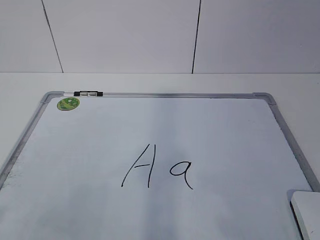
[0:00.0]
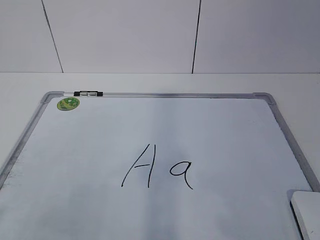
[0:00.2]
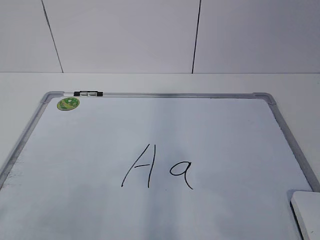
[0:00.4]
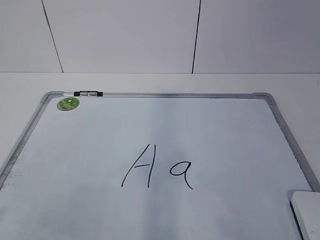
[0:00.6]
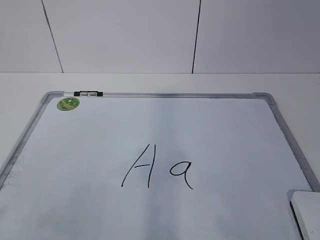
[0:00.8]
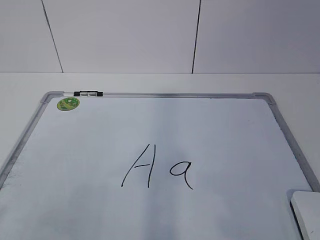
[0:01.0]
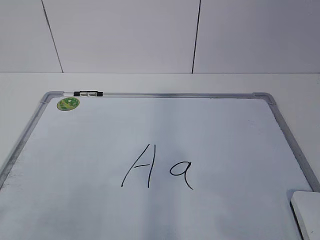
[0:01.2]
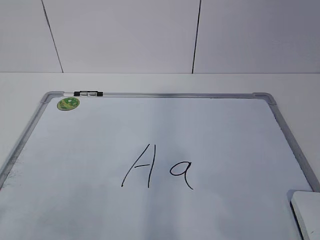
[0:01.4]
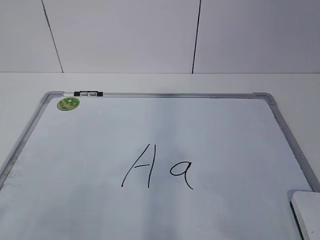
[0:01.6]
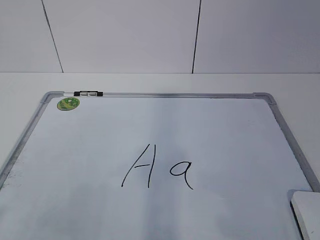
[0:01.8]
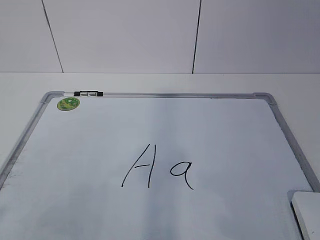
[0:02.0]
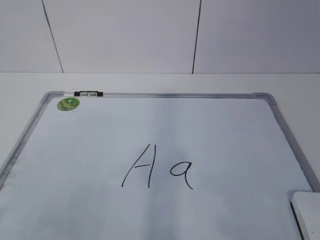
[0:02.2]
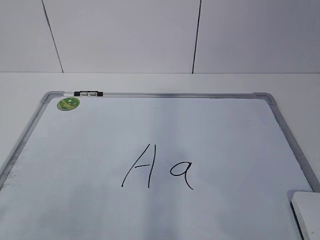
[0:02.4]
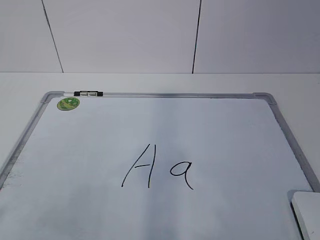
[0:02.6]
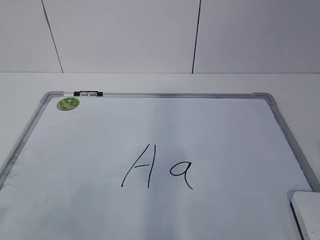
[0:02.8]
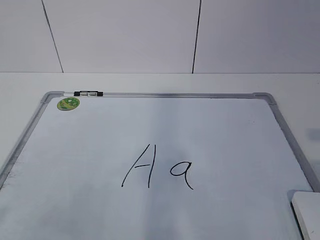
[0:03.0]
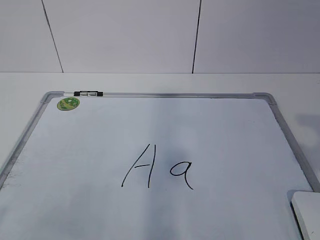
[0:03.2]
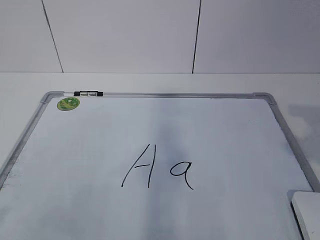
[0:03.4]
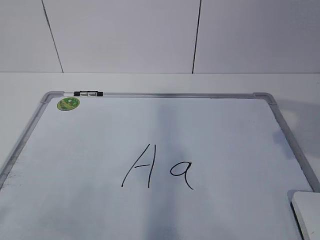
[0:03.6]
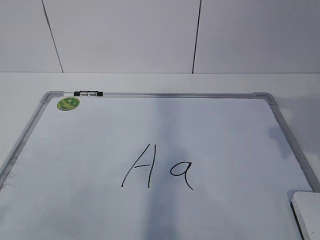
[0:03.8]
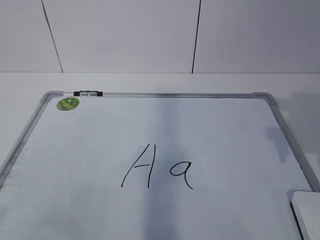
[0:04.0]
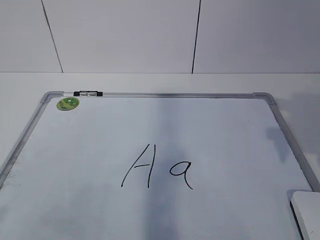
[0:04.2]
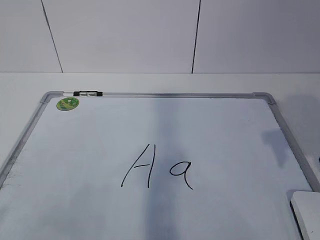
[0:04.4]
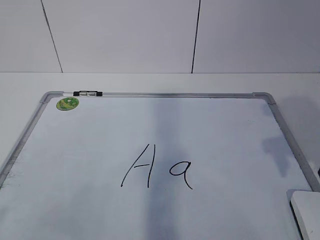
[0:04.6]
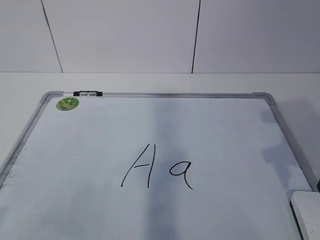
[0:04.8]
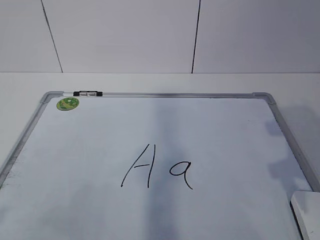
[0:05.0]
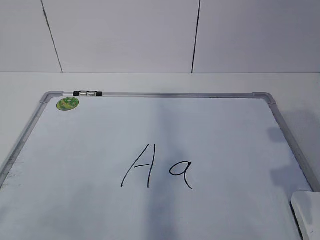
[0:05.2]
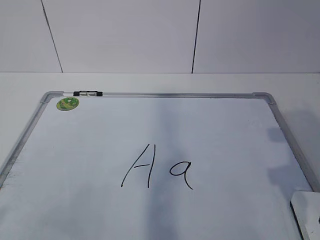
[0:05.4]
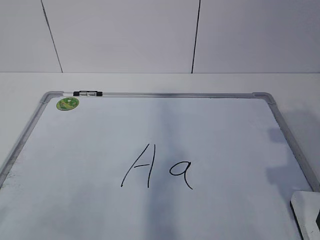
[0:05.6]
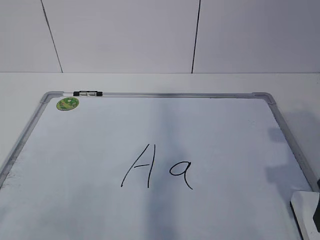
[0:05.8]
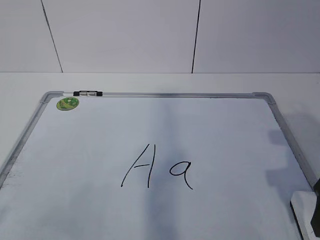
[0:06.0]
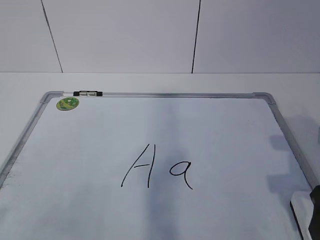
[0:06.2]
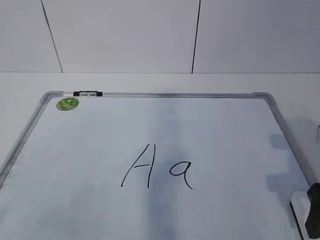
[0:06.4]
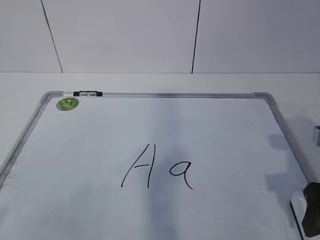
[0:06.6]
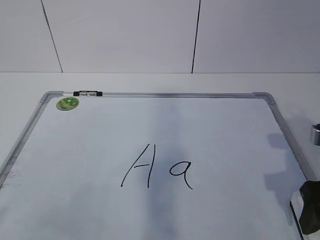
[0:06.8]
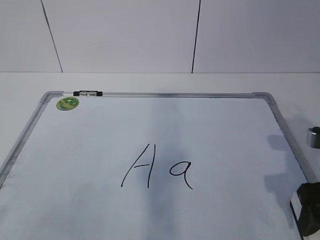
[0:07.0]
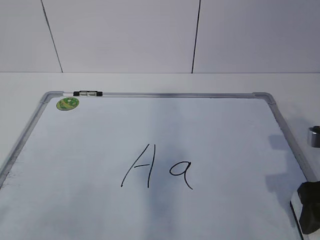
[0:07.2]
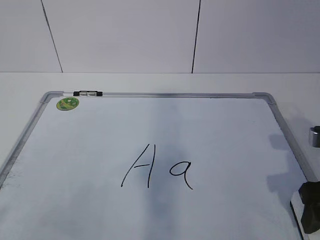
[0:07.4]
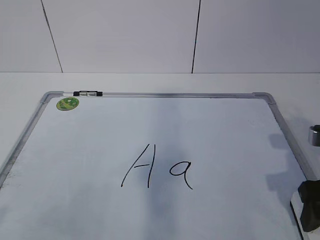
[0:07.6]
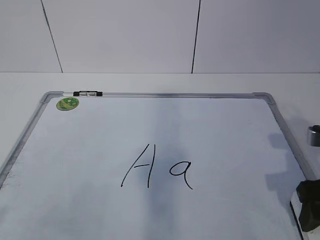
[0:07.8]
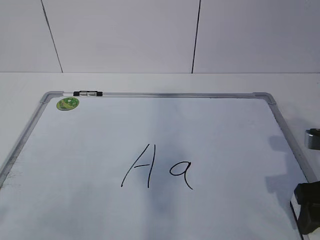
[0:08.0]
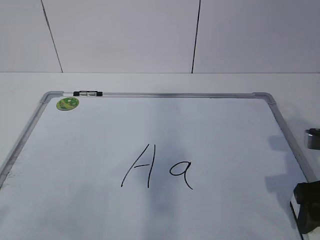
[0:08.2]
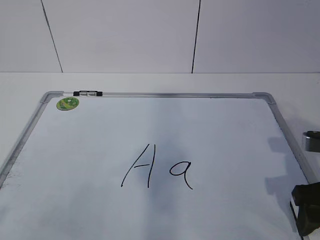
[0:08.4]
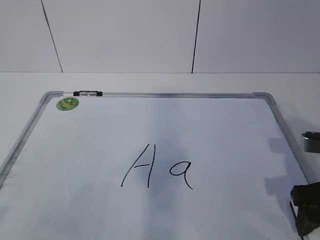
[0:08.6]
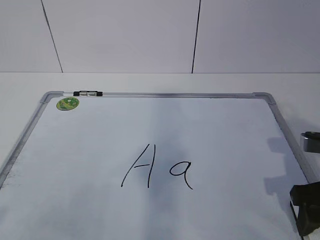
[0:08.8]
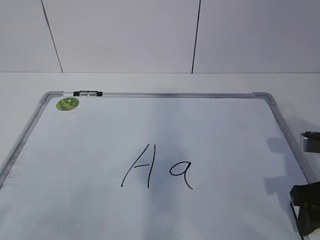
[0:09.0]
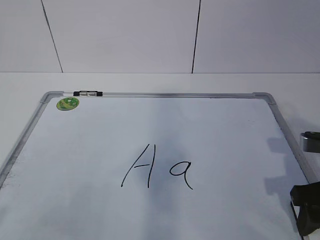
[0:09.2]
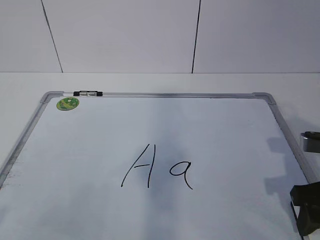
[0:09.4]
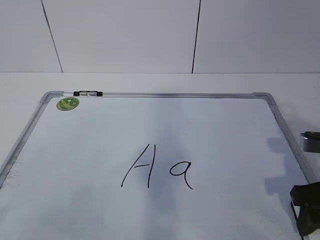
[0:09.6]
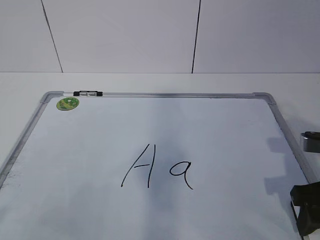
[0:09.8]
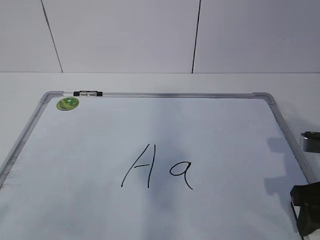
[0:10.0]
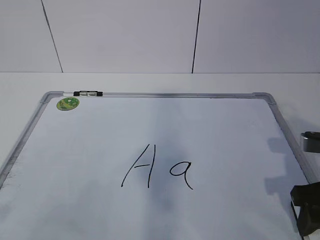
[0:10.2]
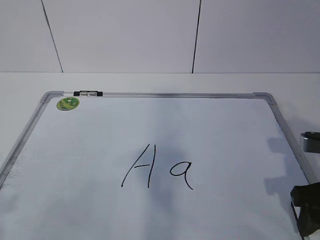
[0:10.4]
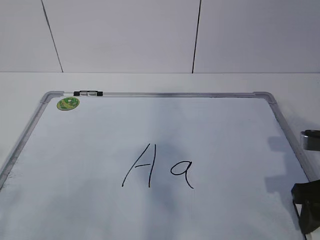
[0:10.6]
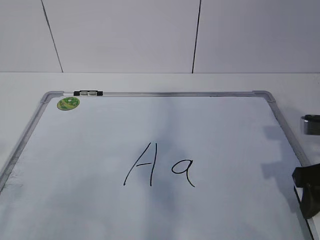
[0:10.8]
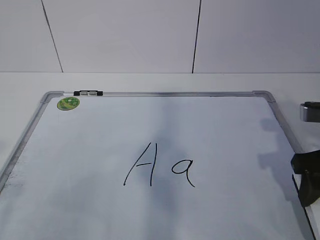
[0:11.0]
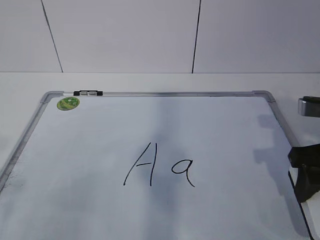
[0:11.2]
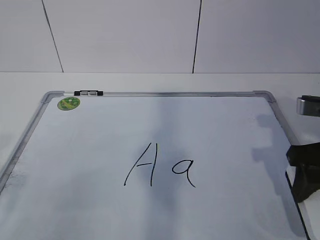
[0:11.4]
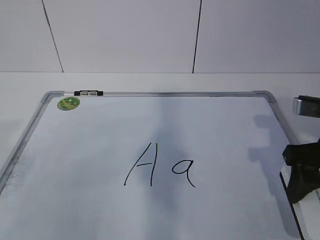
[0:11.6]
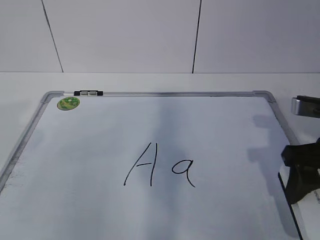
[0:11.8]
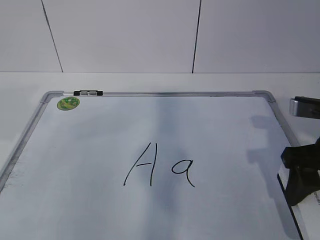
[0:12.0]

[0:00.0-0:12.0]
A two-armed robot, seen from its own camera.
Task of the whole recording: pick up the eraser on the blackboard and erase the letter "a".
0:03.0 to 0:04.4: The right gripper goes roughly 15 cm forward, and opens up.
0:04.4 to 0:06.0: The right gripper moves downward, some 5 cm.
0:06.0 to 0:07.6: The grippers move only a little.
0:07.6 to 0:09.0: The right gripper closes its fingers.
0:10.4 to 0:12.0: The left gripper travels forward by approximately 20 cm; the right gripper shifts by about 5 cm.

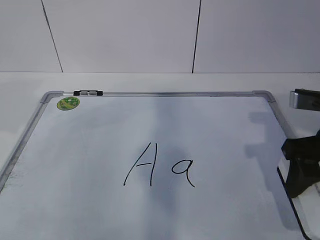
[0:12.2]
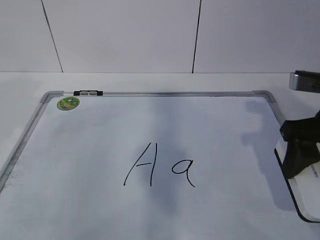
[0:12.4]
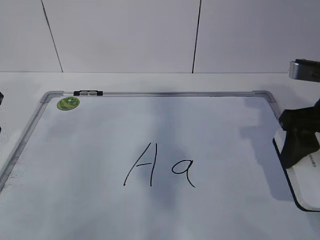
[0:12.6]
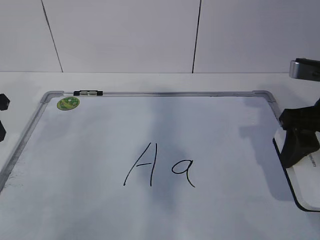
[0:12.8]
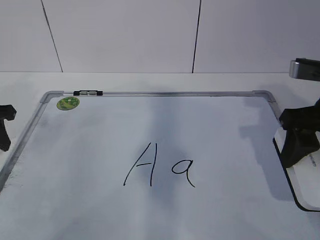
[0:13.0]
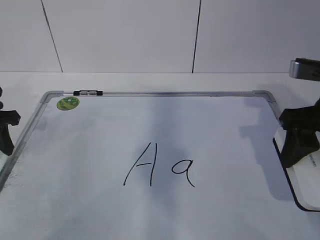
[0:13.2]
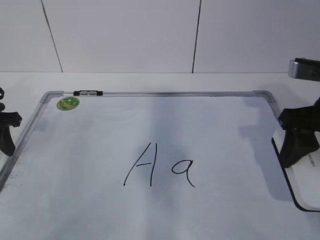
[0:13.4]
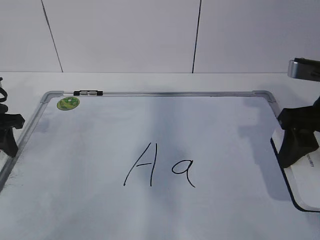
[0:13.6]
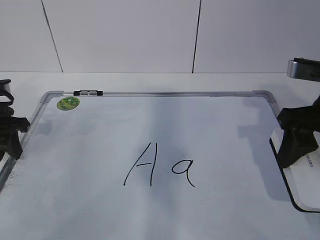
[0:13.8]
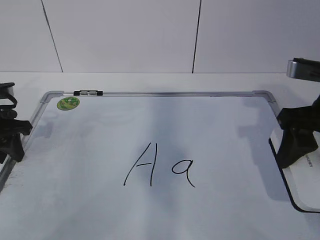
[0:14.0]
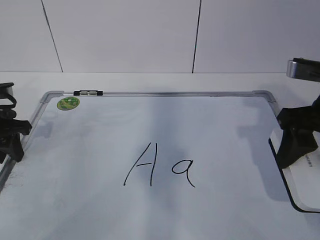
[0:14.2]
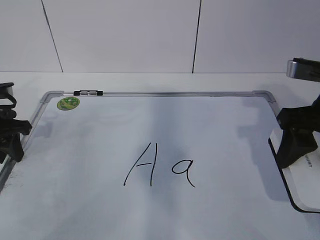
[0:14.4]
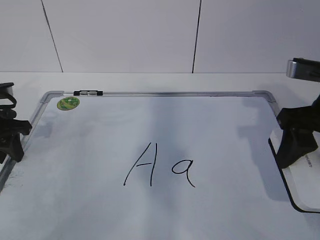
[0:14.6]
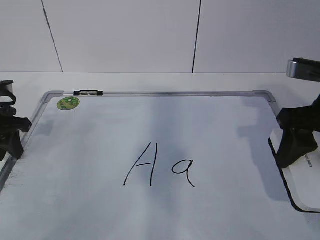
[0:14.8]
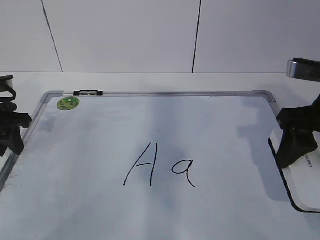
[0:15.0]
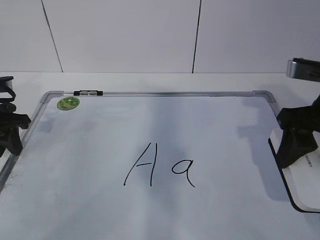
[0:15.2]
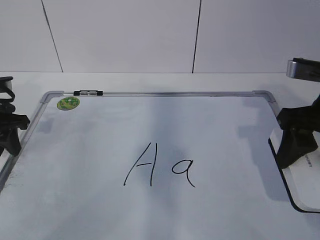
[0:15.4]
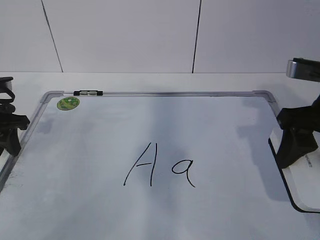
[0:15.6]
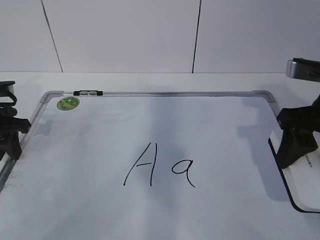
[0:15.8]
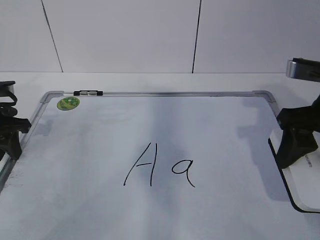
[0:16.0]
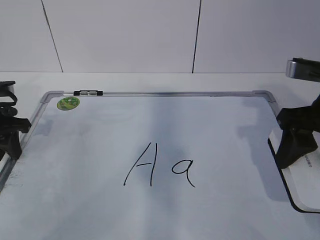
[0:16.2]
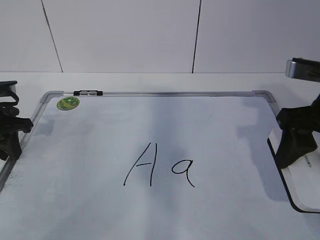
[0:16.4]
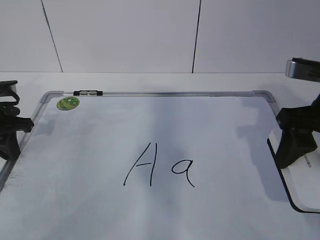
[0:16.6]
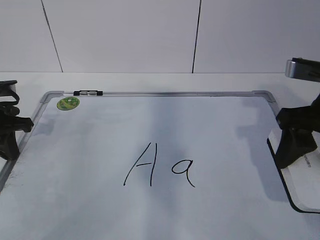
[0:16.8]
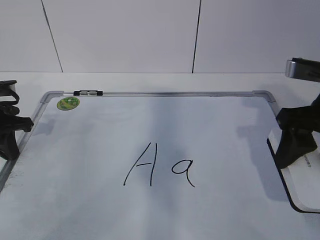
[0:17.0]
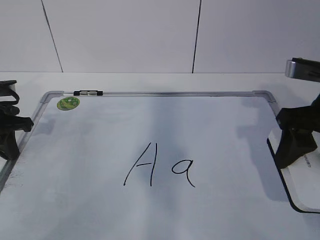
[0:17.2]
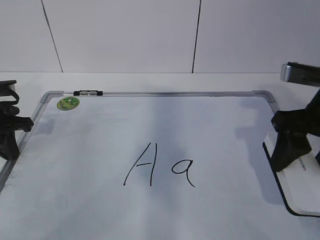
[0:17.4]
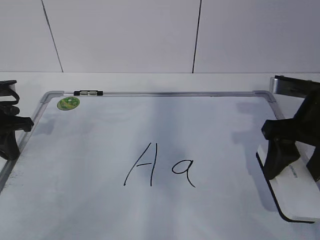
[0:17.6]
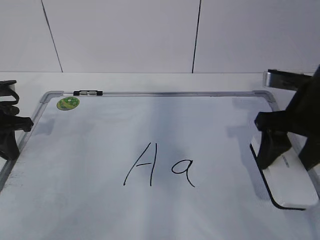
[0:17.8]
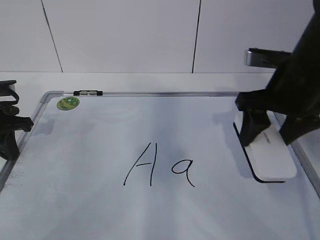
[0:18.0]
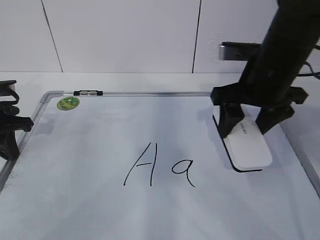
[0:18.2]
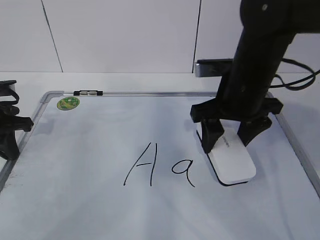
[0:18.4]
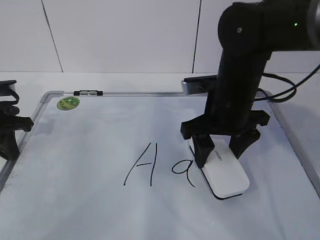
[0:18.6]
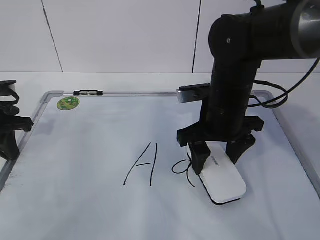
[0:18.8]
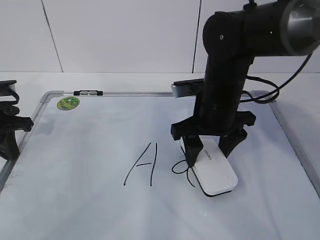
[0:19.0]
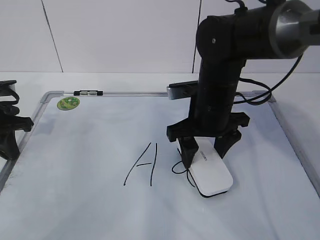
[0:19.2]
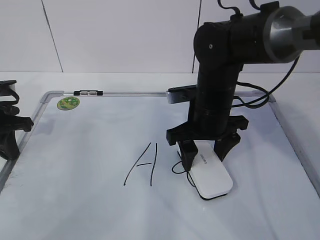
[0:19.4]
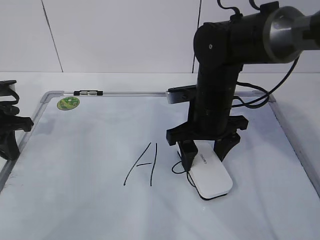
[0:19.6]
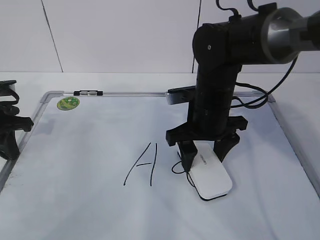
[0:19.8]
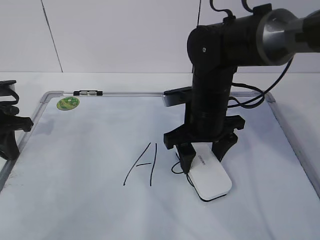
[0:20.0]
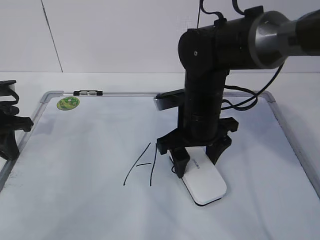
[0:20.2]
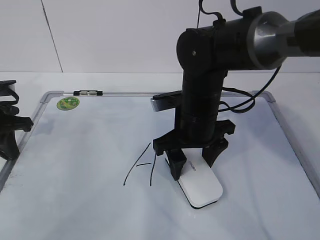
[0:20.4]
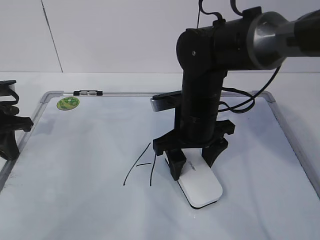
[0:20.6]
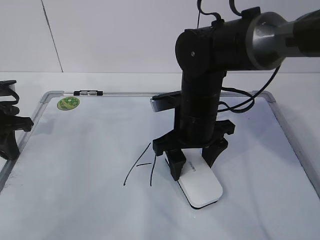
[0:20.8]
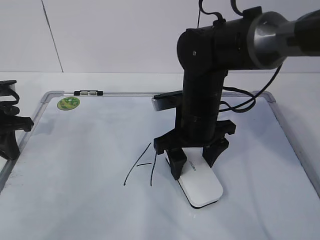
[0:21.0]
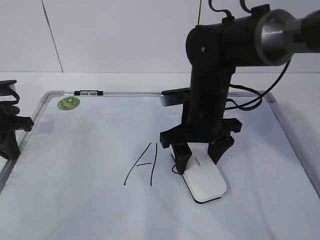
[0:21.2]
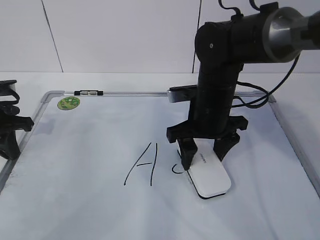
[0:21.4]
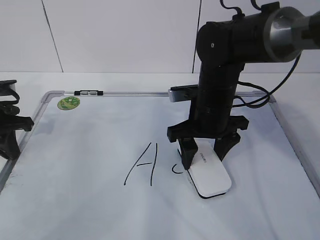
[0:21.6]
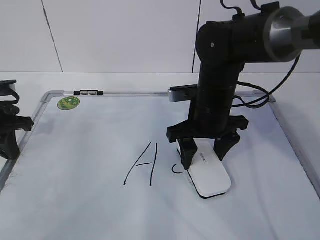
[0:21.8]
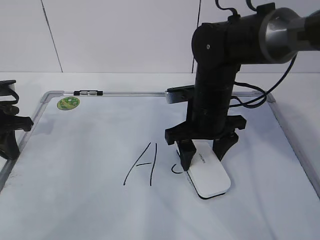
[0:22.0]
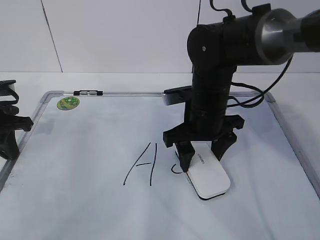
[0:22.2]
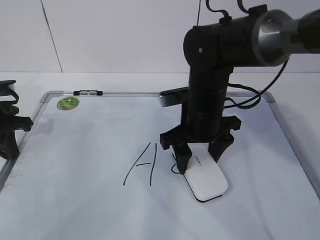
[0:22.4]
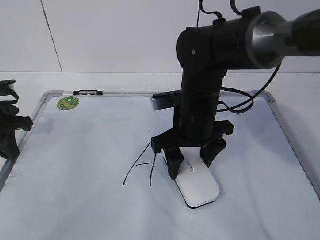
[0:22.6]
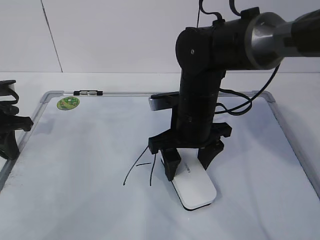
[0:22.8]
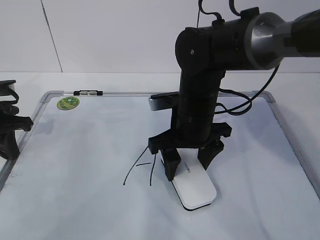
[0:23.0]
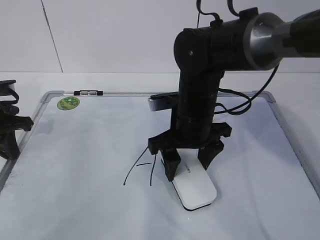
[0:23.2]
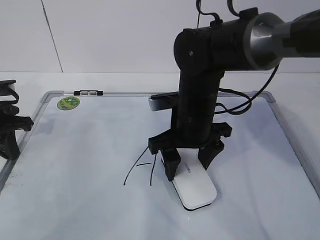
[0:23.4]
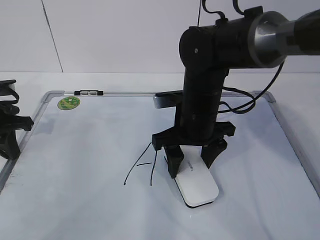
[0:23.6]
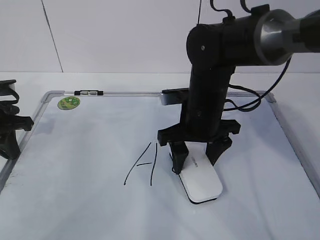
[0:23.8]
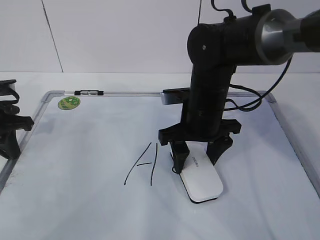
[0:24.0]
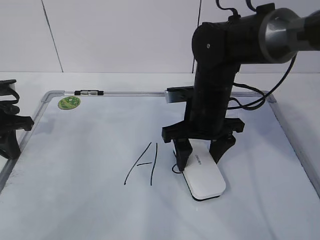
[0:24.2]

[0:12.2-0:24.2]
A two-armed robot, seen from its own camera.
Task of the whole recording: pick up the eraser on the blackboard and erase the letter "a".
Step, 0:14.2 to 0:23.2: Erase the letter a with your right hand.
0:12.2 to 0:13.8: The left gripper is displaced downward and forward by some 15 cm.
0:13.8 to 0:15.2: Both grippers stay put.
0:15.2 to 0:16.6: The left gripper closes.
0:16.6 to 0:18.2: The right gripper moves forward and to the left, some 10 cm.
0:18.2 to 0:19.8: The right gripper is displaced downward and to the left by about 10 cm.
0:19.8 to 0:24.2: The grippers make only small movements.
